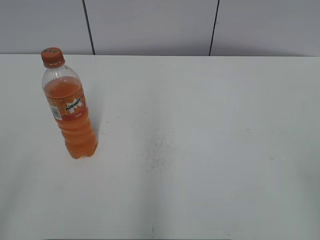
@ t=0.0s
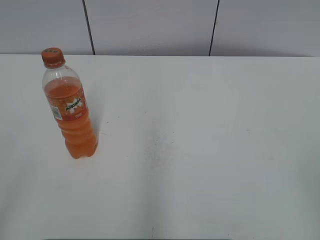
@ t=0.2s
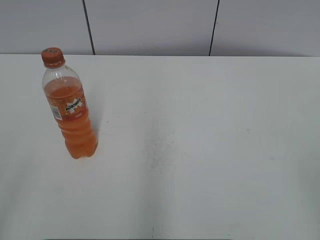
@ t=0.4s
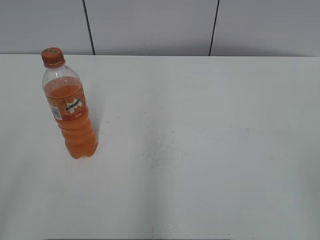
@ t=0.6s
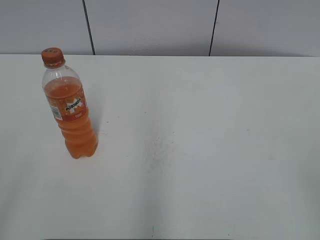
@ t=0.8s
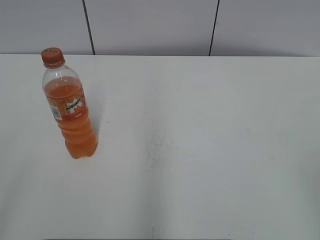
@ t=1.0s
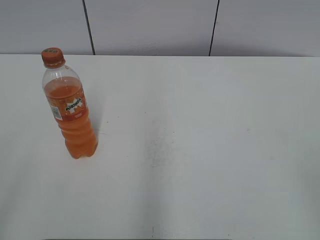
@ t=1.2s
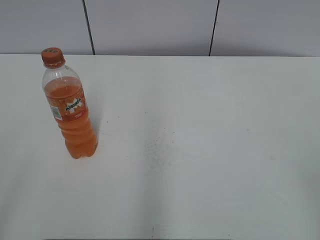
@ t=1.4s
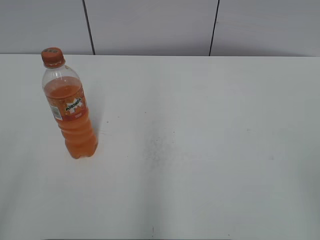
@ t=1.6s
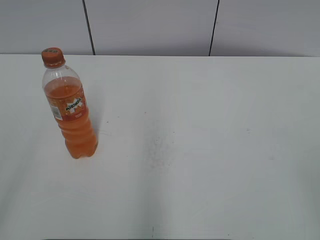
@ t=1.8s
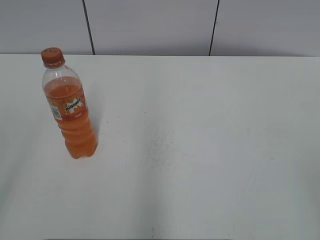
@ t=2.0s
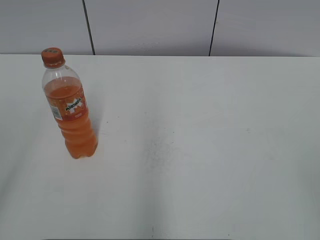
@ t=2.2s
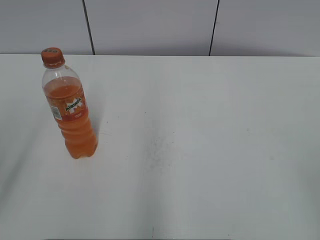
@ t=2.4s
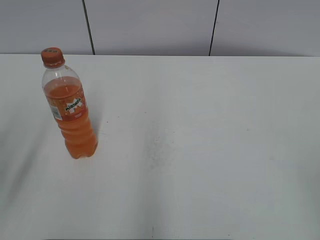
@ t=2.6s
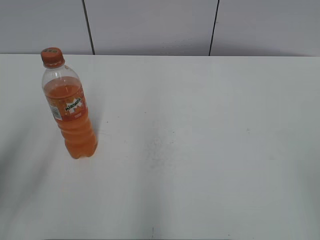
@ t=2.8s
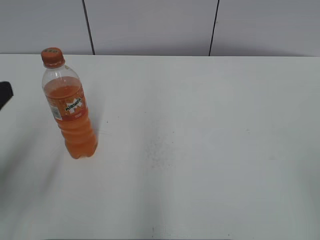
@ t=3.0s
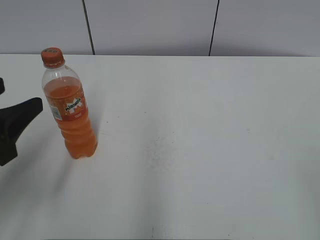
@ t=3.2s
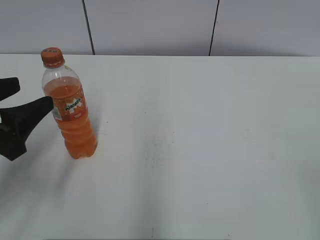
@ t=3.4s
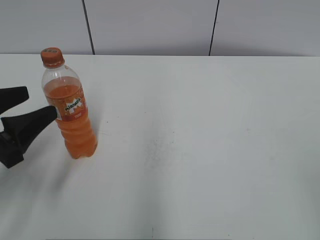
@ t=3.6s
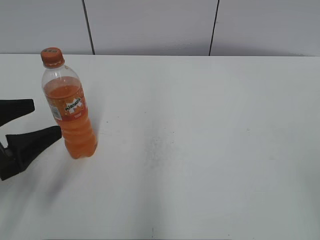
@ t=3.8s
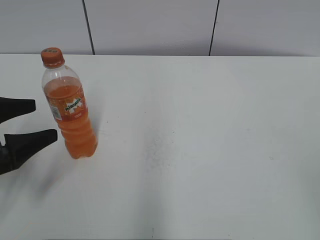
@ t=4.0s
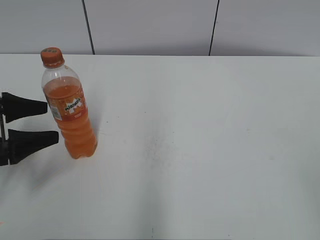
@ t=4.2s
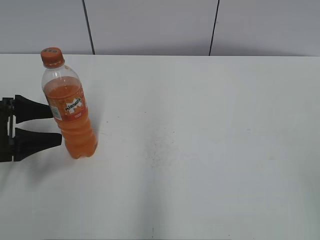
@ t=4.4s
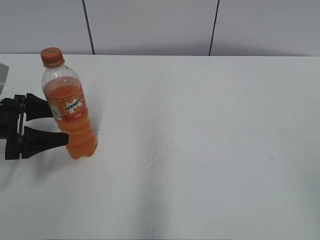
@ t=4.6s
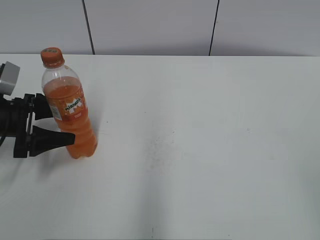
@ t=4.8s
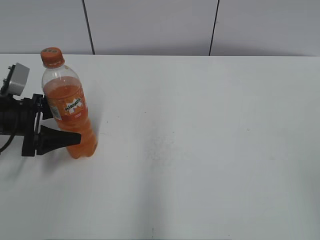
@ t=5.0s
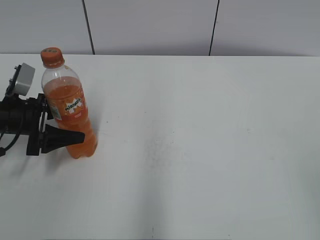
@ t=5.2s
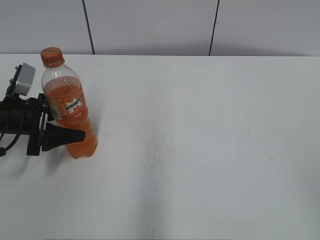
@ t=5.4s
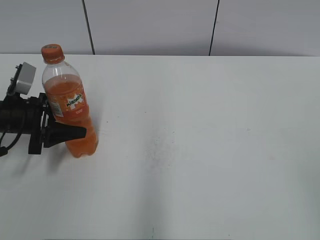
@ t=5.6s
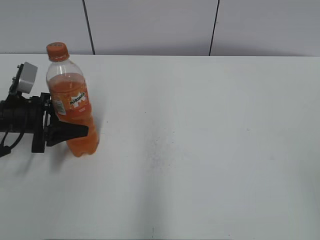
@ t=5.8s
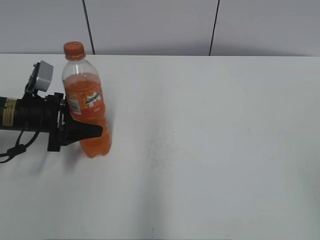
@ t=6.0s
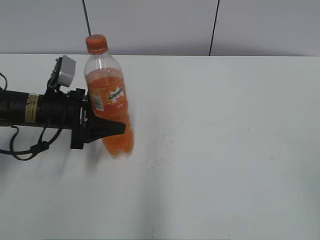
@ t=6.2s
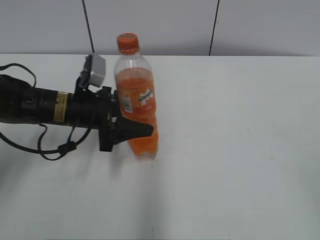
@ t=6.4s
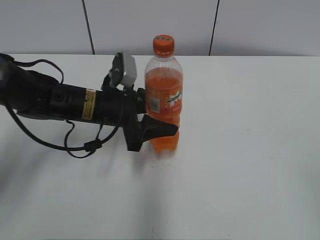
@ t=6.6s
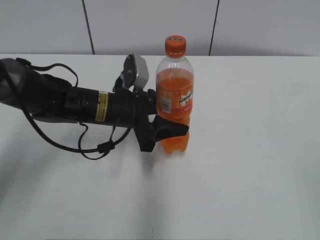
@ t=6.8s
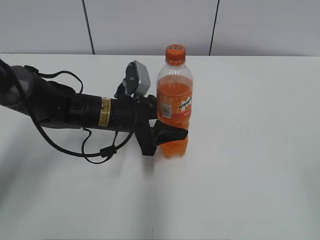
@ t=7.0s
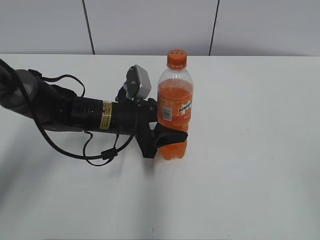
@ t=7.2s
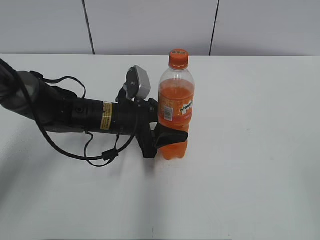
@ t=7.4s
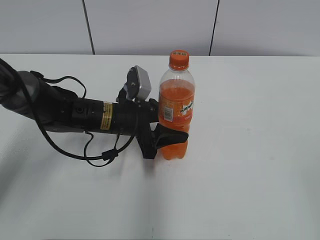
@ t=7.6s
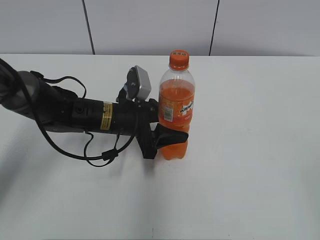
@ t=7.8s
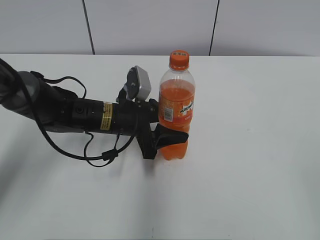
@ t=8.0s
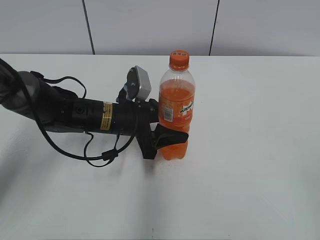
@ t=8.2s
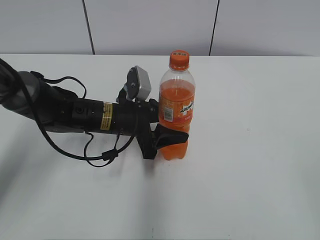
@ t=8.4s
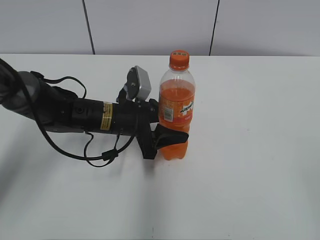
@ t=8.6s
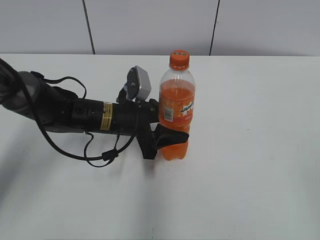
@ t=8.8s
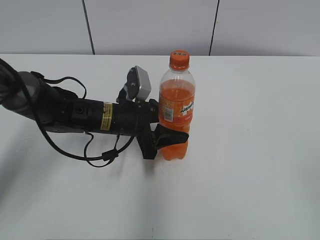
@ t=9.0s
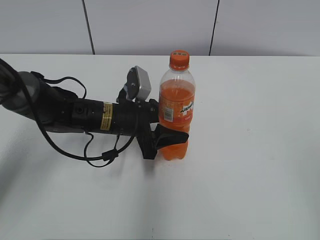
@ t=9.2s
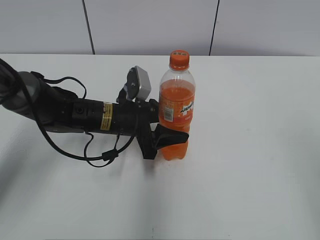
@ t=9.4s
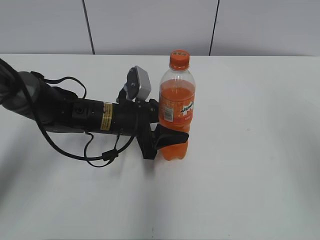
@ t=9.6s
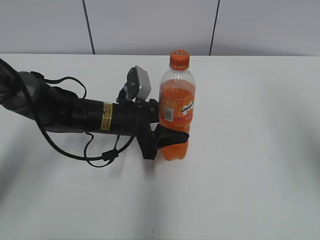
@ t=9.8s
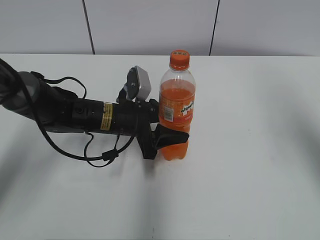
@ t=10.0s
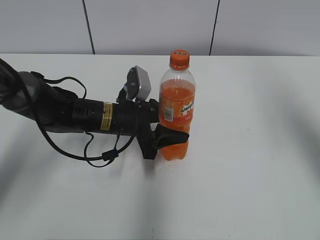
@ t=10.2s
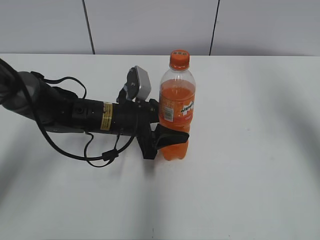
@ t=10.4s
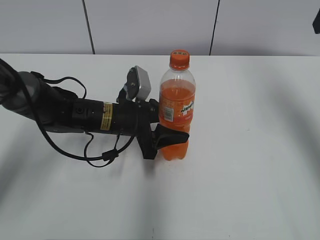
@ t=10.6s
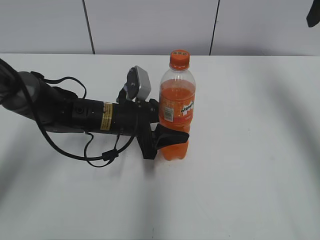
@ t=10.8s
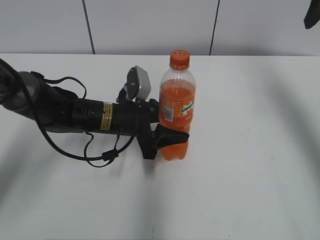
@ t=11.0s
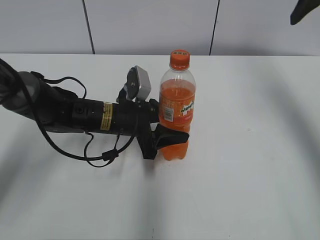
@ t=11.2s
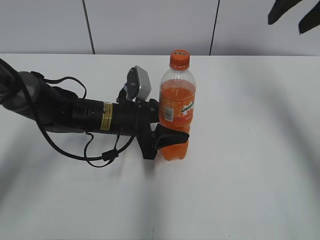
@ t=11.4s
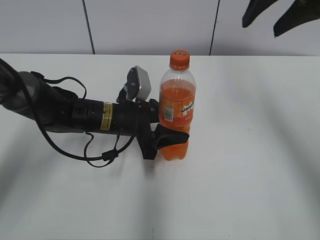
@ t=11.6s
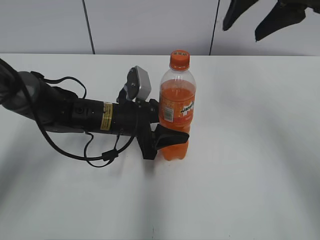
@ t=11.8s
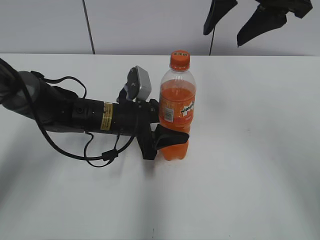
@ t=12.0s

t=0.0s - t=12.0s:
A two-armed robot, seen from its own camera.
Step, t=0.0s - t=5.6s: Grab the Mirinda with the left hand.
Step, t=5.8s - t=8.4s: Move the Mirinda from left to right.
t=1.6s - t=3.0s: The left gripper goes some 15 cm forward.
t=3.0s - t=4.4s: The left gripper travels forward and downward by roughly 20 cm, and opens its fingers.
t=4.4s - t=6.0s: The left gripper heads to the right and forward, covering some 10 cm, and closes.
t=6.0s - t=7.6s: The left gripper travels to the right by some 15 cm.
t=7.6s - t=9.0s: Both grippers stay about where they are.
t=9.0s - t=10.4s: The right gripper is displaced forward by about 30 cm.
t=10.4s - t=12.0s: The right gripper is displaced to the left by roughly 15 cm.

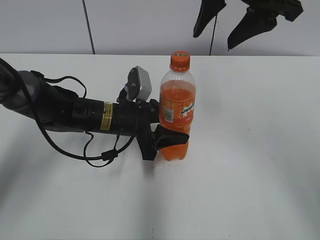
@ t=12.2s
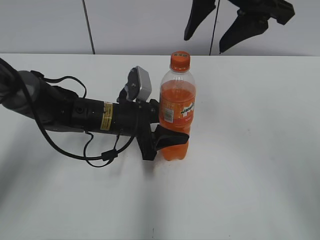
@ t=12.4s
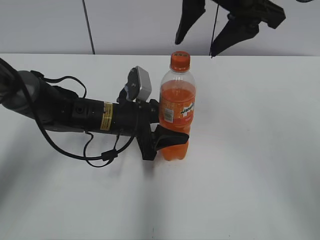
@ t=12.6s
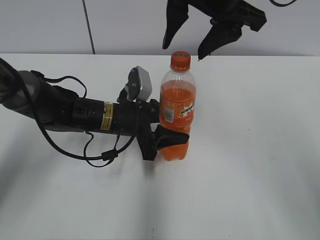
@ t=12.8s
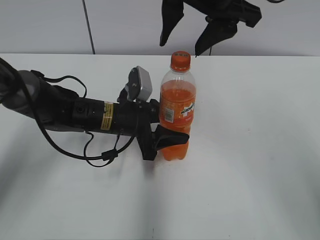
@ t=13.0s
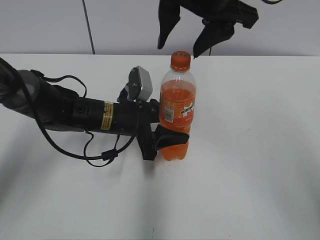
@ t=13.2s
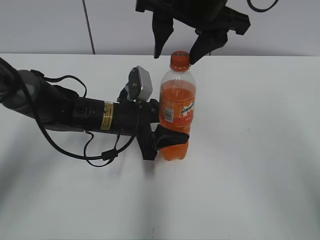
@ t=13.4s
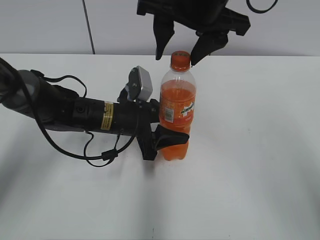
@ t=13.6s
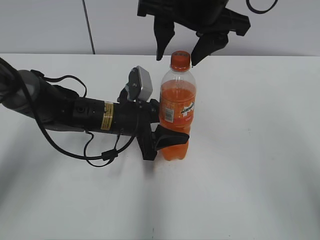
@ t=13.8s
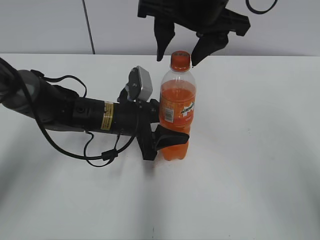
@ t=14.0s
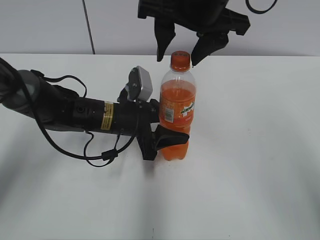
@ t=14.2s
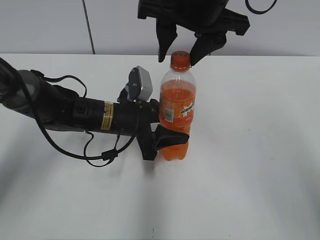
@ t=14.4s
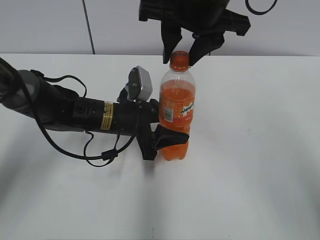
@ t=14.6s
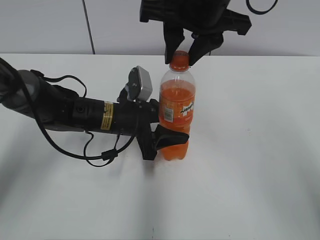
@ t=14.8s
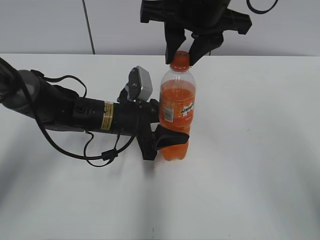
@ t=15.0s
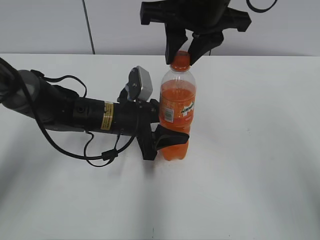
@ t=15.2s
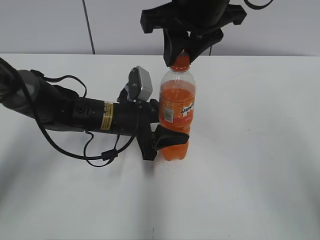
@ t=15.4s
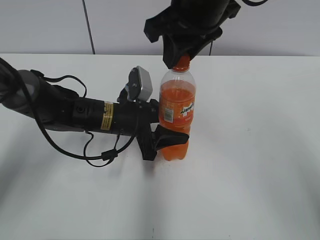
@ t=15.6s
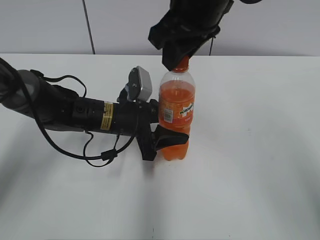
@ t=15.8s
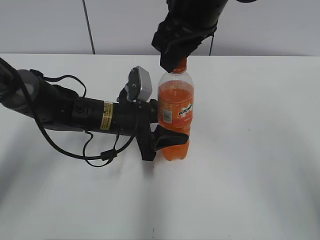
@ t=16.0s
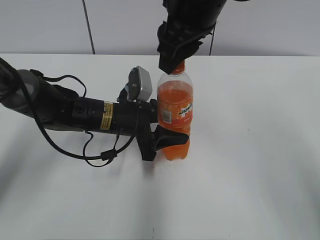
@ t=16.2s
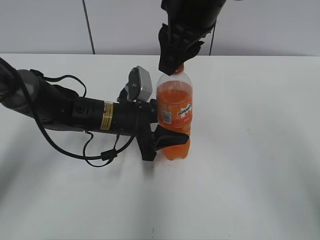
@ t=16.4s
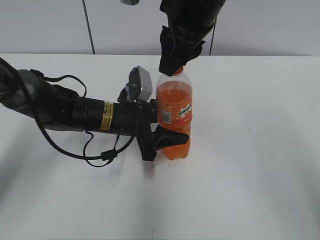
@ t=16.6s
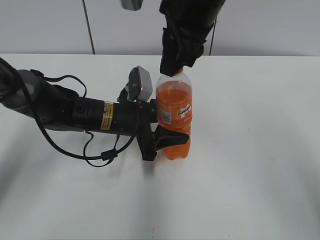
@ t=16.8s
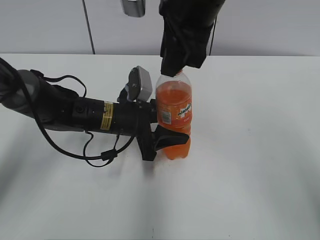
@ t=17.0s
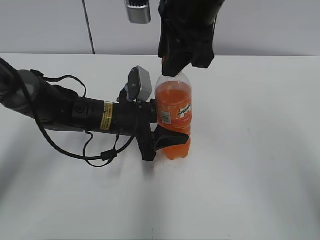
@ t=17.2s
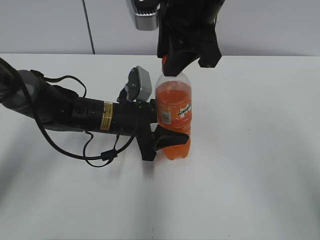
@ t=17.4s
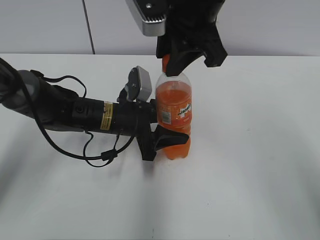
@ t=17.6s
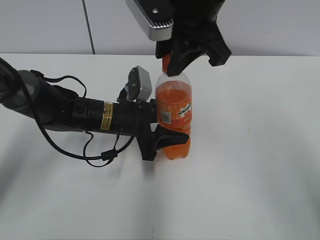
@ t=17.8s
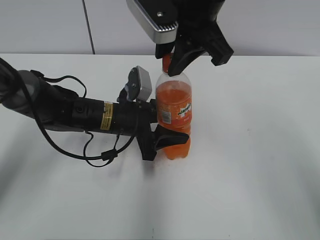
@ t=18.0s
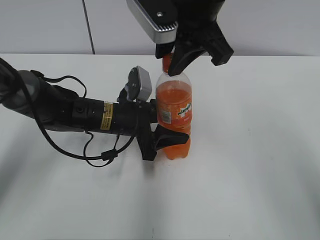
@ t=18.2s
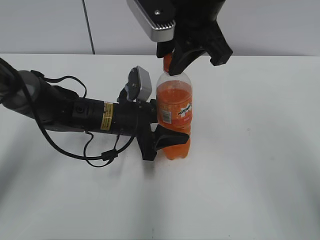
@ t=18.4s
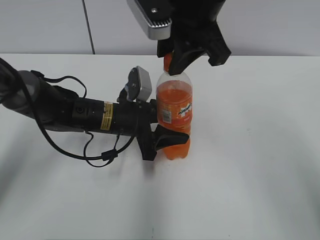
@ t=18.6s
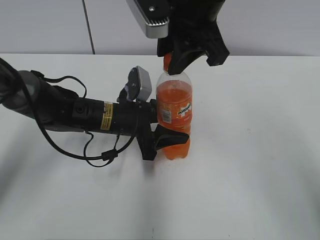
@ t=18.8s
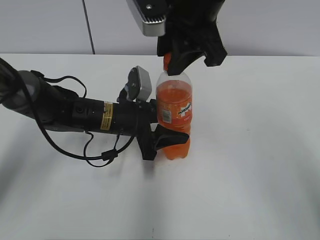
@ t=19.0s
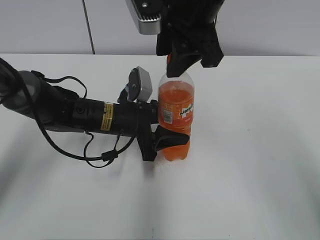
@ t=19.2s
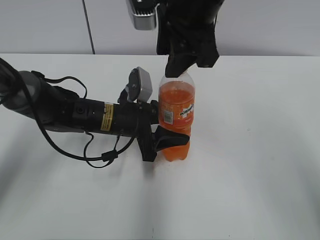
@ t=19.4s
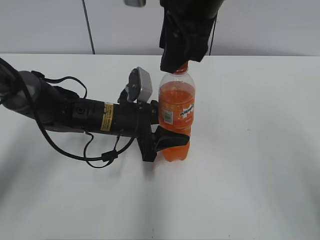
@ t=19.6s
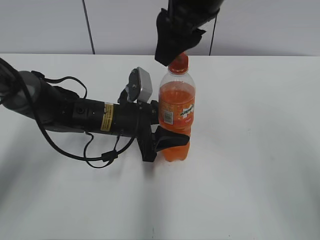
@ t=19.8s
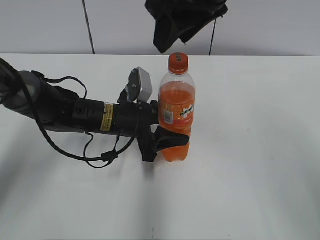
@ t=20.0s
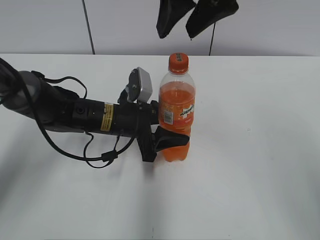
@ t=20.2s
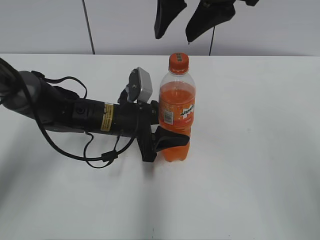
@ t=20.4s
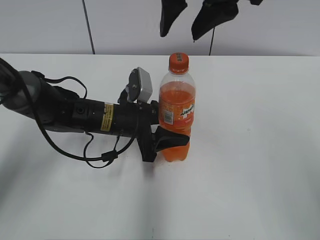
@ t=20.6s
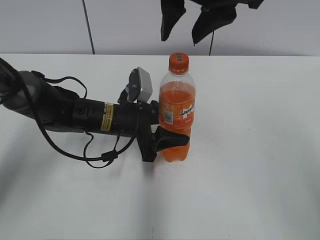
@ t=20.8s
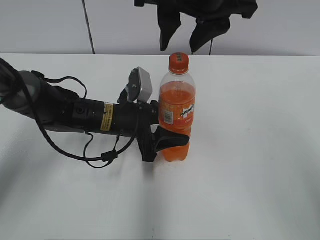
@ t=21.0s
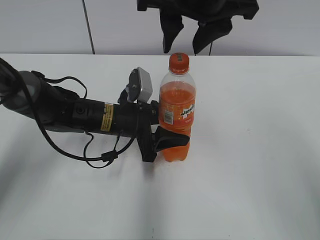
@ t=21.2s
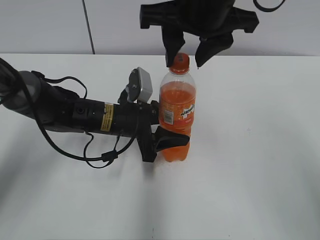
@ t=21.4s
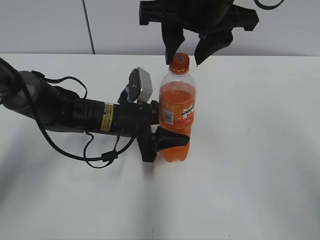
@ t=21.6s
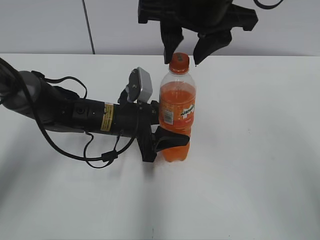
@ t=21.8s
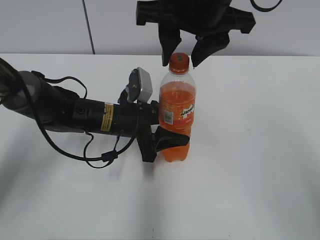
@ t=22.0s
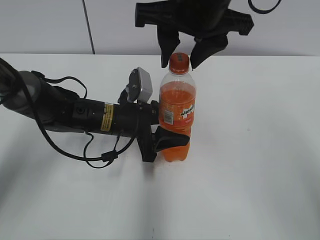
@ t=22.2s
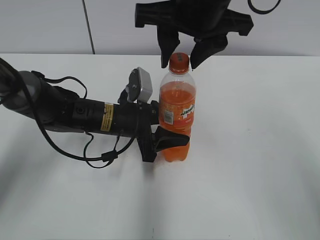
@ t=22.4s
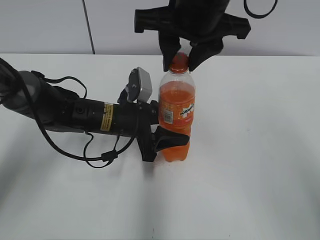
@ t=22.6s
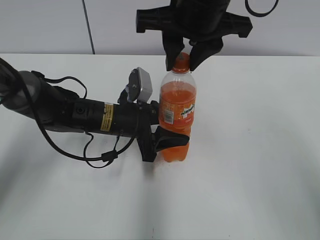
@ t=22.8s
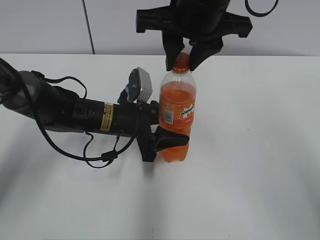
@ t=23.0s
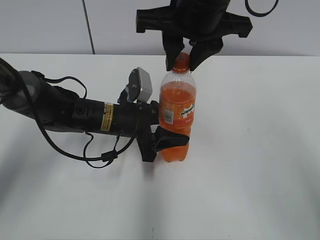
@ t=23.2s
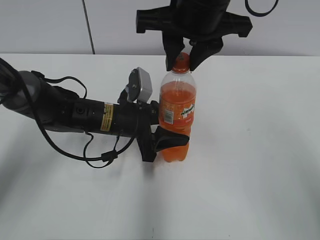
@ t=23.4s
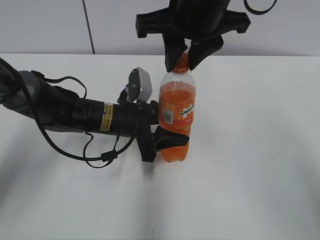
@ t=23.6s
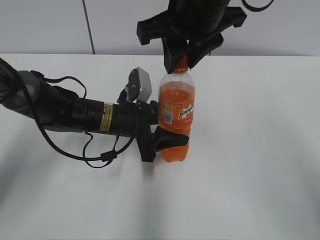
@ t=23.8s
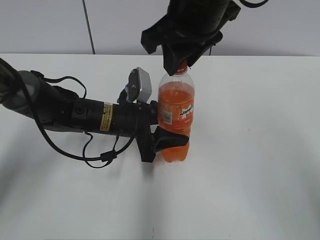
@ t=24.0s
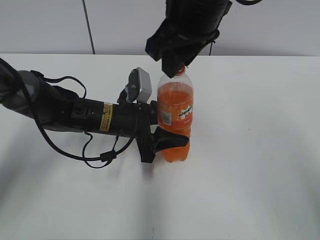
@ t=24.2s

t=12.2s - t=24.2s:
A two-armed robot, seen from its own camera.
t=12.2s - t=13.8s: The right gripper travels to the left by about 5 cm.
t=13.8s - t=15.2s: The right gripper closes up.
t=18.2s - t=19.8s: The right gripper opens.
t=21.2s - t=22.6s: The grippers make only small movements.
